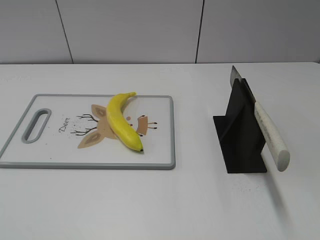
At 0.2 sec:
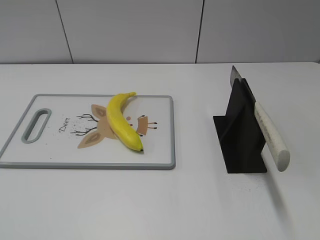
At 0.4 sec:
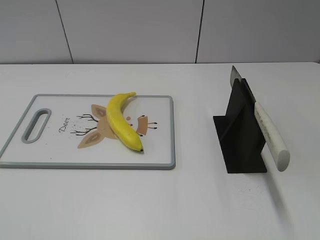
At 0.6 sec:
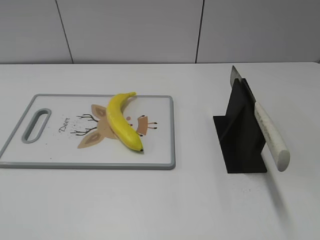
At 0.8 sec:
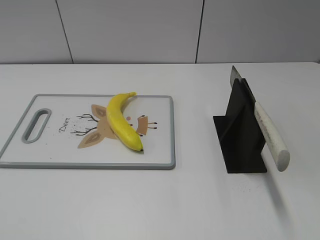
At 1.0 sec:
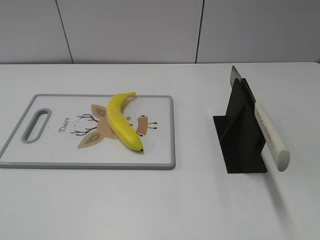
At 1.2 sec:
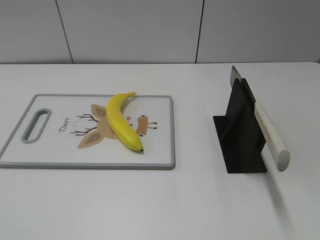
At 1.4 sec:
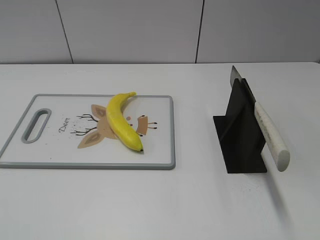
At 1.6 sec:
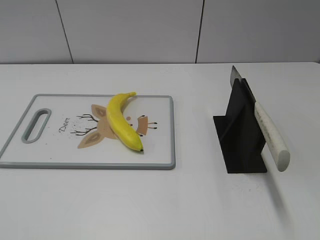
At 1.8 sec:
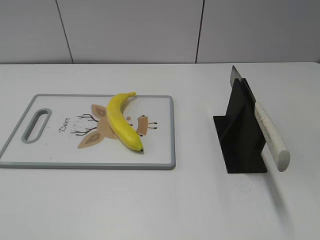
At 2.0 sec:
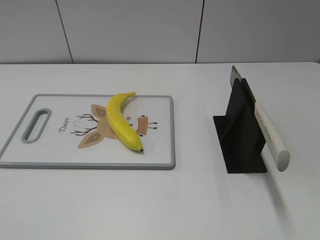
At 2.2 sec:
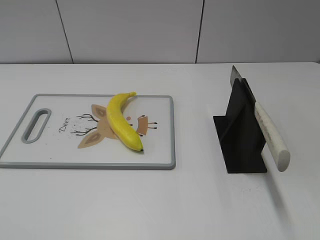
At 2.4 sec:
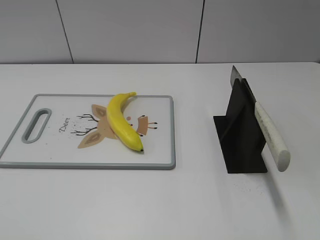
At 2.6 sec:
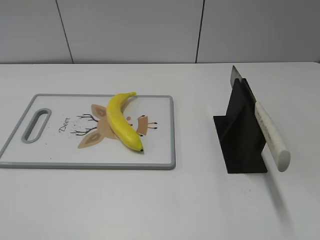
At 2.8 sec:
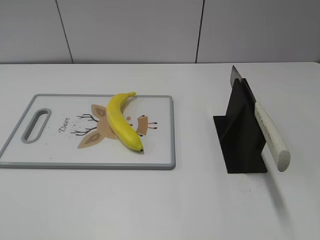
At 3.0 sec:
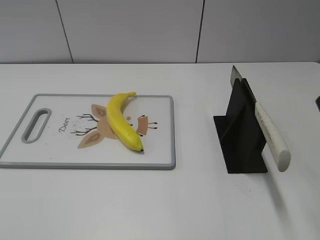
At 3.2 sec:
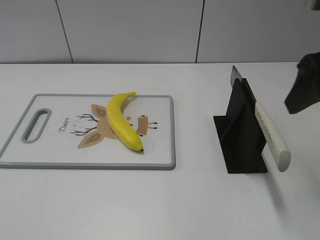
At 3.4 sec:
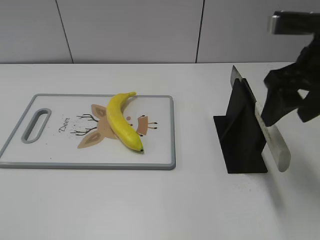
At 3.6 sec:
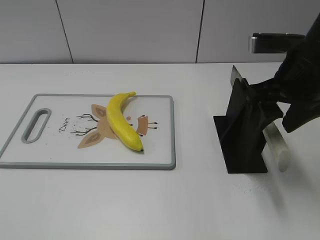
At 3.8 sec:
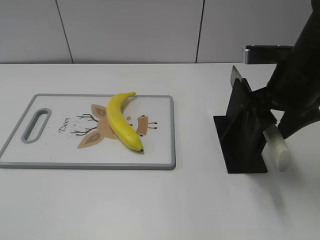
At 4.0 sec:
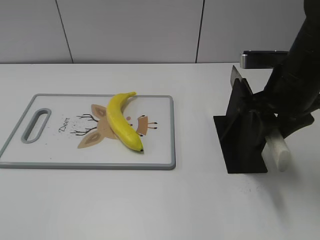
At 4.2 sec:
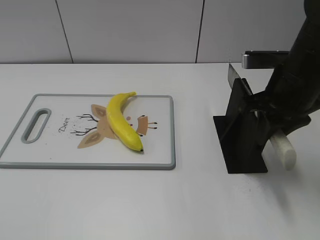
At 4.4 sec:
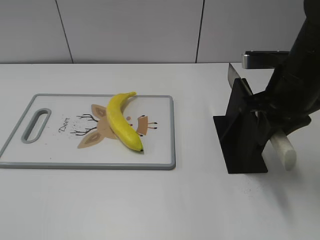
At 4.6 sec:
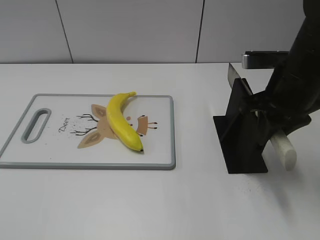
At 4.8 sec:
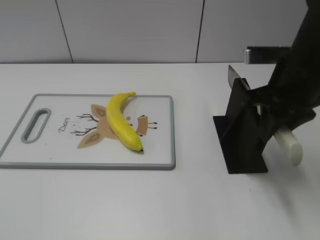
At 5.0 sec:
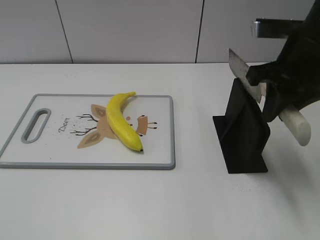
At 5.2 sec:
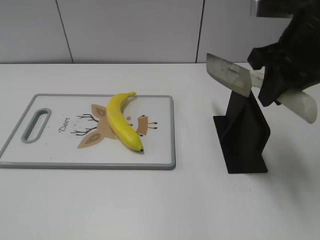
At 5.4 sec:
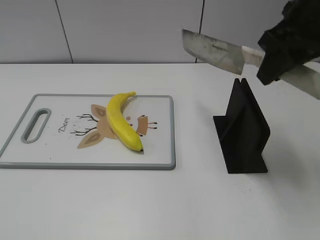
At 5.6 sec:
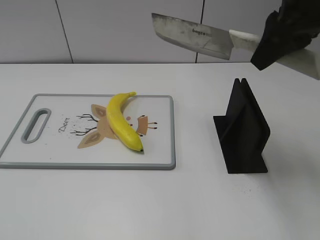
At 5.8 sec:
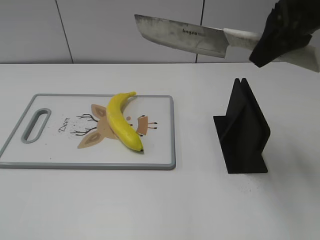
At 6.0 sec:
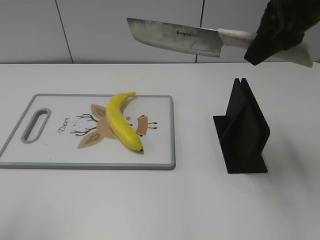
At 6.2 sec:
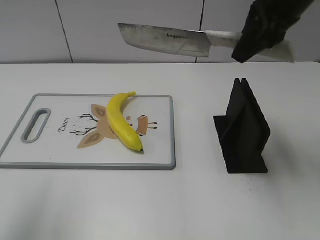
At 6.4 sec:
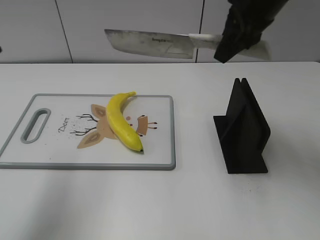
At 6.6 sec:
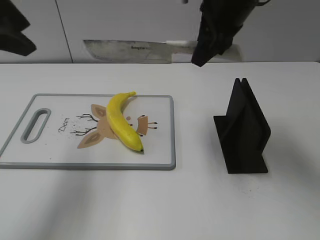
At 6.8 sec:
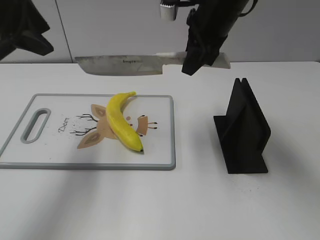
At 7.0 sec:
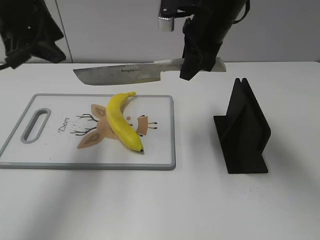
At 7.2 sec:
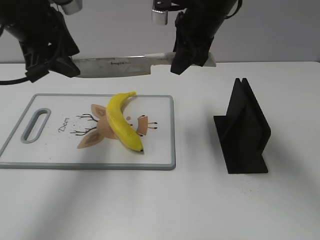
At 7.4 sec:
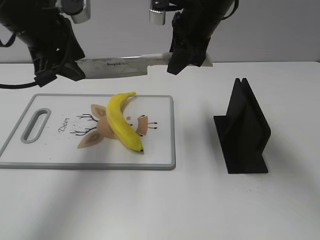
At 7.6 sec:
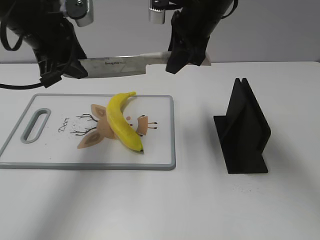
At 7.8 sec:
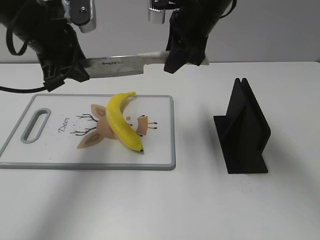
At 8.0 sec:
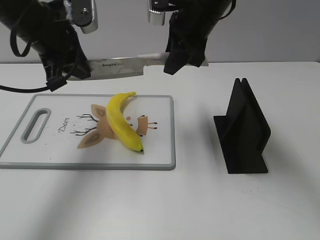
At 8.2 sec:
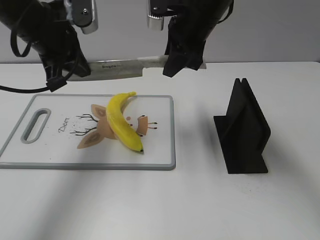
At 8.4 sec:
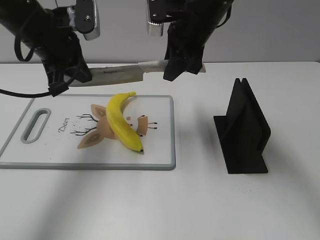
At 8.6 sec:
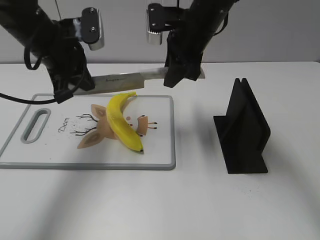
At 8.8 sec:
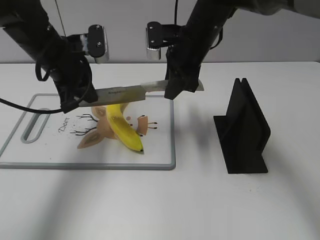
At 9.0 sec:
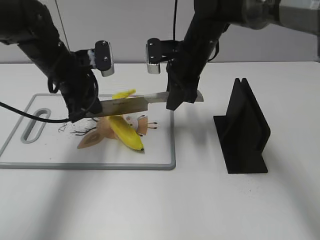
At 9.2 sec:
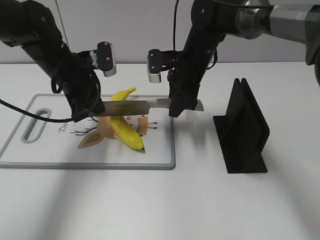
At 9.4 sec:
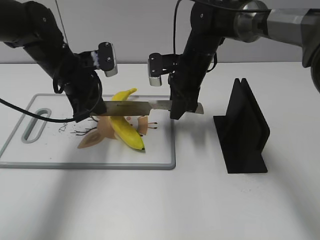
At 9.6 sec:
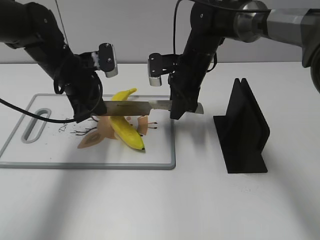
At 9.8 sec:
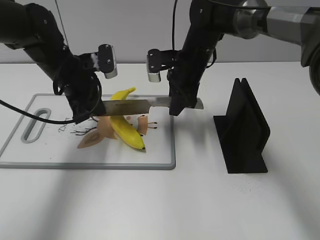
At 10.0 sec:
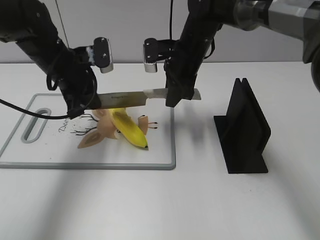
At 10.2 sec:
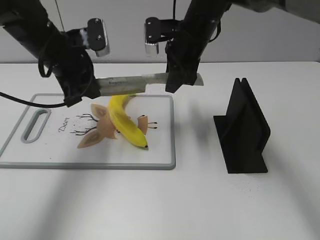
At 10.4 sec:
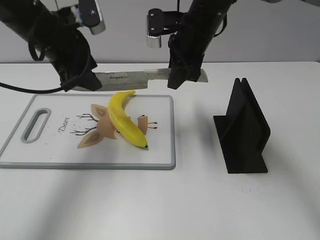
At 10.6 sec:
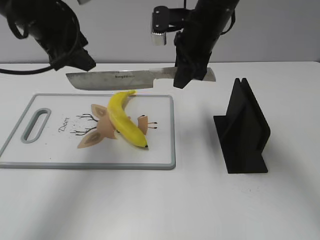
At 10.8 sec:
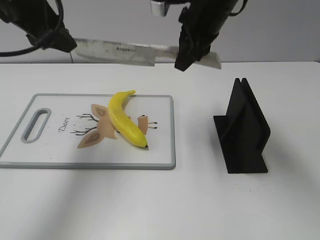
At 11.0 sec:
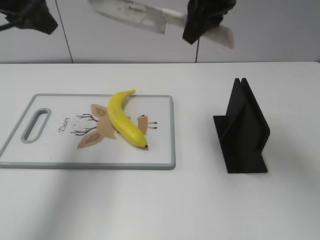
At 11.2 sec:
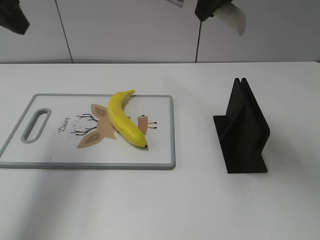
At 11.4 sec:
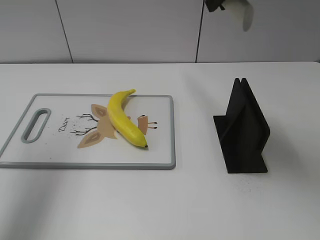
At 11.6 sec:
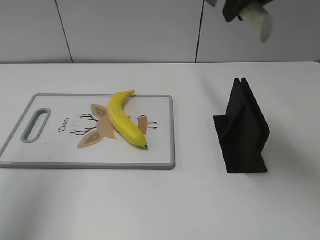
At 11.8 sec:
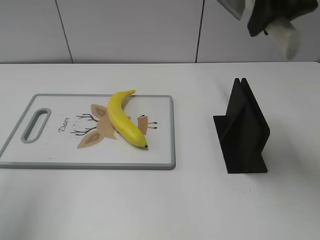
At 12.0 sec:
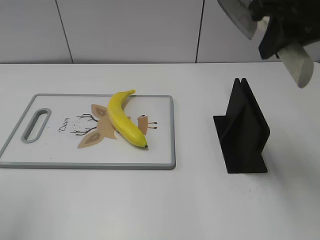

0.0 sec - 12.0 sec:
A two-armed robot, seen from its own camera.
Task of the whole recording: cut plastic banana.
Step, 0.0 sec - 5.2 sec: Grab the knife handle with your right hand.
Step, 5.6 sec - 10.0 sec: Lift the knife with your right hand.
3.0 sec - 4.4 sec: The right gripper goes approximately 15 cm downward and forward, and closes its fingers.
4.4 sec - 6.0 sec: The right gripper travels upward by about 10 cm. Meanwhile the left gripper heads forward and upward, covering some 15 cm.
6.0 sec - 7.6 sec: The right gripper shifts approximately 15 cm to the left, forward and downward, while the left gripper goes some 25 cm forward and to the right.
7.6 sec - 9.0 sec: The grippers both shift downward by about 10 cm. The left gripper closes up.
9.0 sec - 10.4 sec: Both grippers move upward, about 5 cm. The left gripper opens its fingers.
10.4 sec - 12.0 sec: The left gripper travels backward, to the left and upward by approximately 25 cm, while the right gripper travels backward, upward and to the right by some 20 cm.

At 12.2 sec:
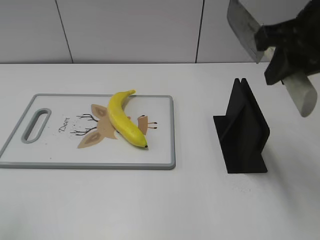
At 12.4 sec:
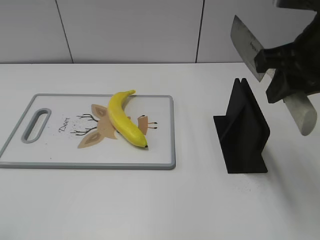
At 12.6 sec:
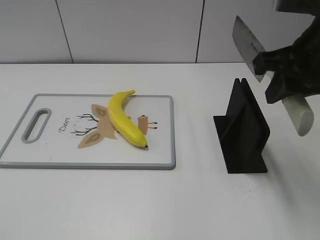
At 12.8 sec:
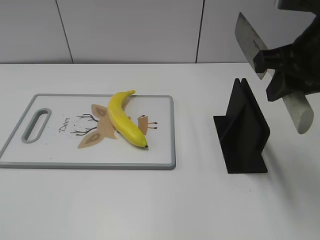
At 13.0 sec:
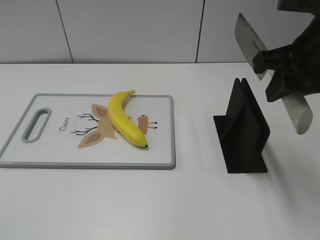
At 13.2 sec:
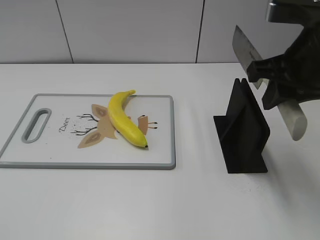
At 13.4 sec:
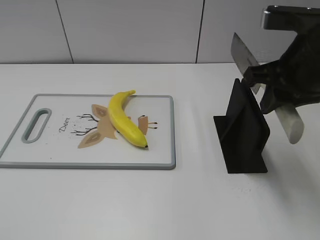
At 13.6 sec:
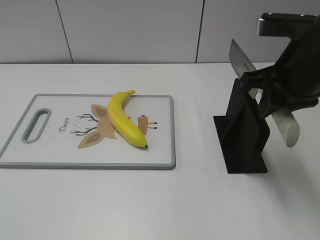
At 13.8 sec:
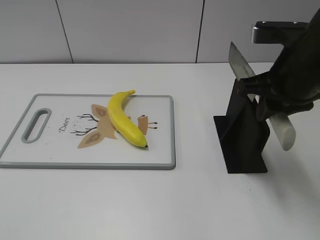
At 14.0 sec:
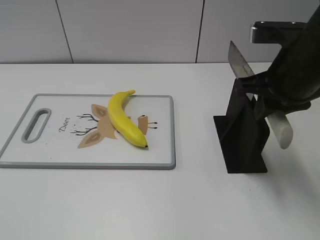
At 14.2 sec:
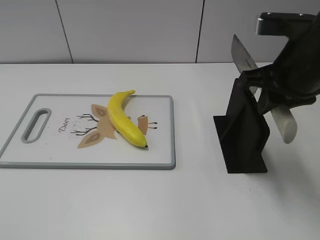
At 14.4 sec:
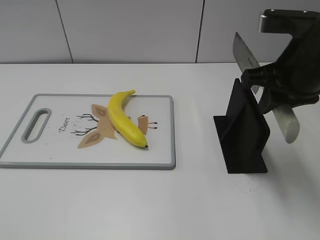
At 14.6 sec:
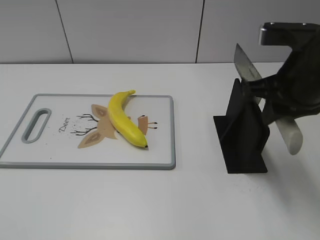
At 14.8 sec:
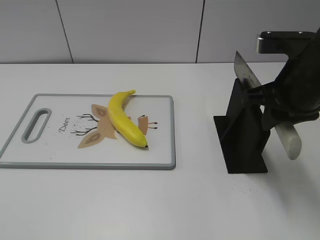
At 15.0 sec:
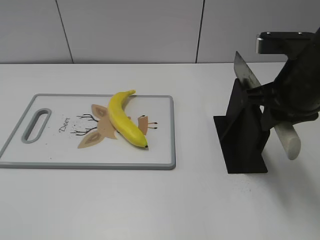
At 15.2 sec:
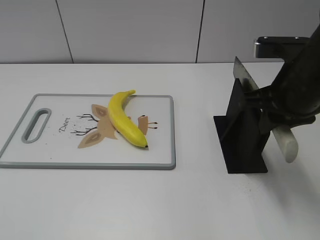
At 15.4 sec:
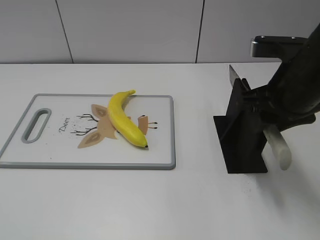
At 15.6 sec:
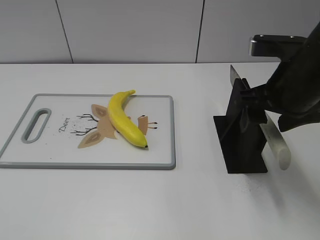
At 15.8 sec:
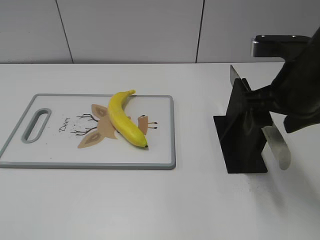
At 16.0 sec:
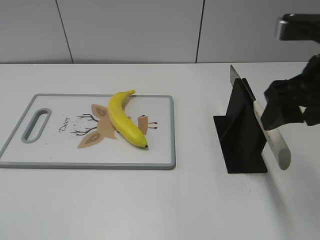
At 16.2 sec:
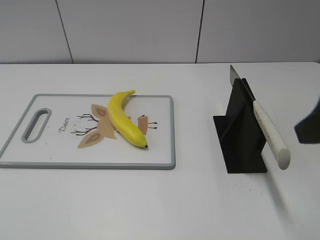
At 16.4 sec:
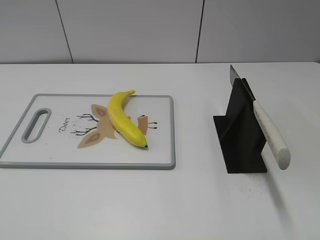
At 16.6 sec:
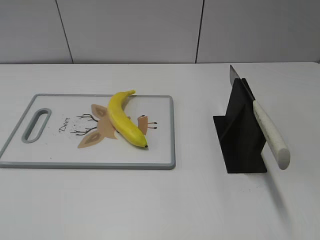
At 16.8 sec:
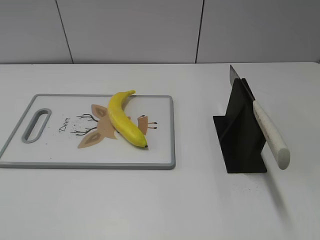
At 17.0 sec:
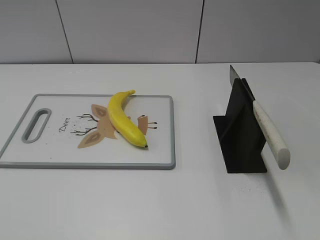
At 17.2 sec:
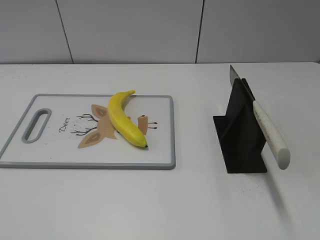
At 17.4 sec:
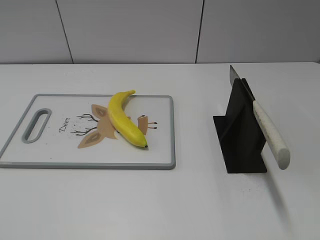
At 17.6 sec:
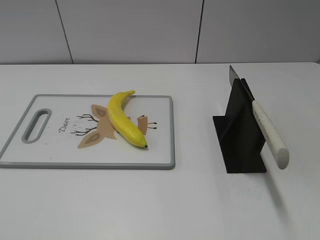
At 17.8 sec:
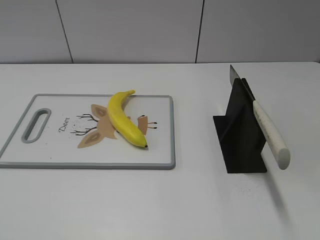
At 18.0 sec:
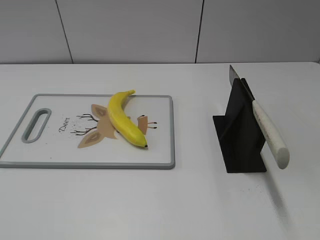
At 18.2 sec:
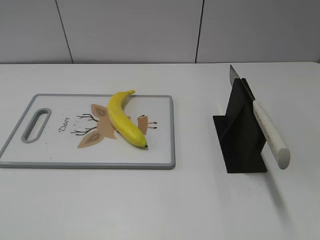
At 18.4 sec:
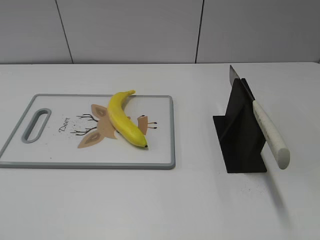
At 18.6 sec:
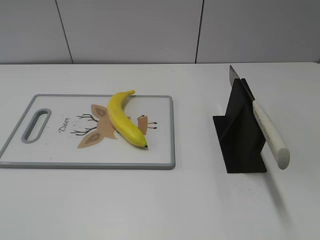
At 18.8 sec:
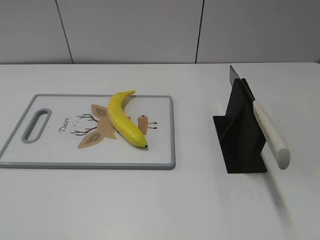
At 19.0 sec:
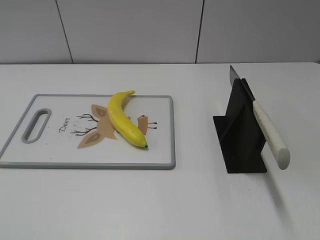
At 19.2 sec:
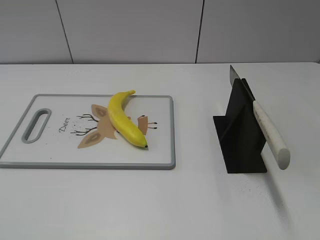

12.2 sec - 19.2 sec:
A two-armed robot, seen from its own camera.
Task of the whole recording: cut plastic banana.
Step, 12.8 sec - 19.2 sec: Place the knife on the storage rack with your right hand.
12.2 sec - 13.6 sec: The right gripper heads downward, covering about 5 cm.
13.6 sec - 15.0 sec: There are only small adjustments of the grippers.
15.0 sec - 16.4 sec: The right gripper moves backward and to the right, some 15 cm, and opens its fingers.
